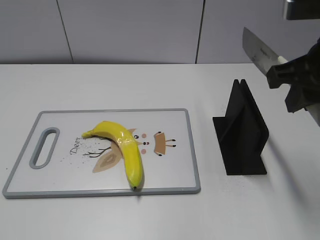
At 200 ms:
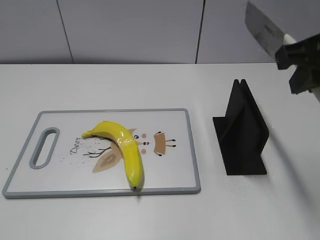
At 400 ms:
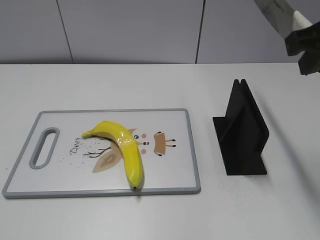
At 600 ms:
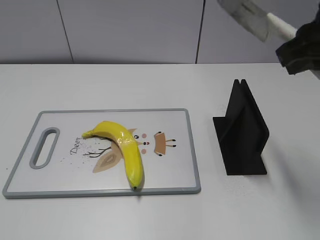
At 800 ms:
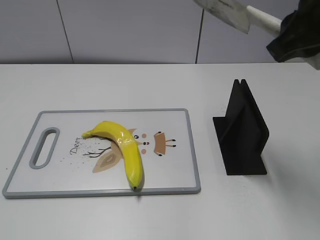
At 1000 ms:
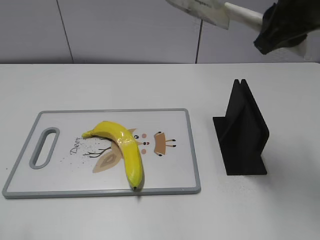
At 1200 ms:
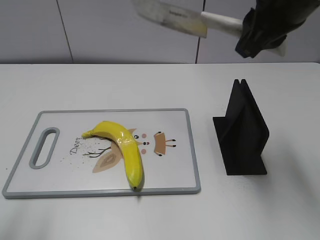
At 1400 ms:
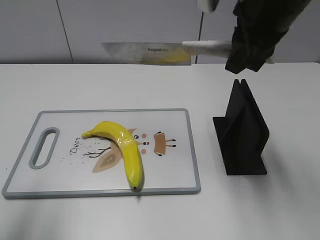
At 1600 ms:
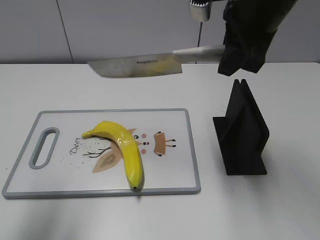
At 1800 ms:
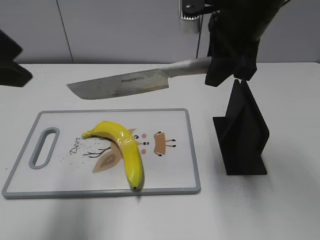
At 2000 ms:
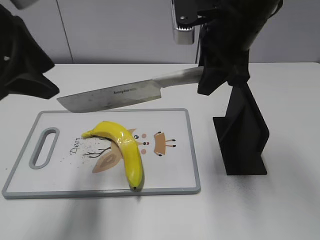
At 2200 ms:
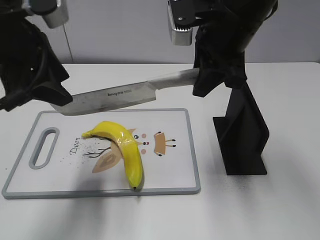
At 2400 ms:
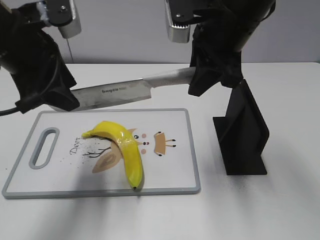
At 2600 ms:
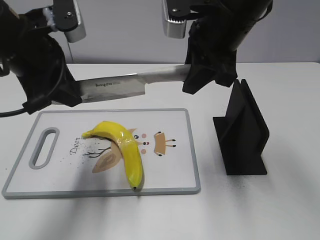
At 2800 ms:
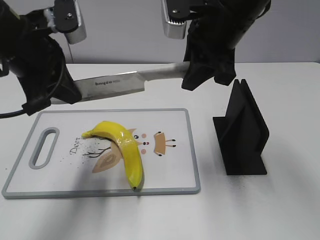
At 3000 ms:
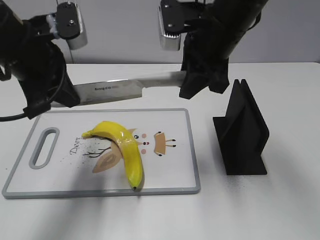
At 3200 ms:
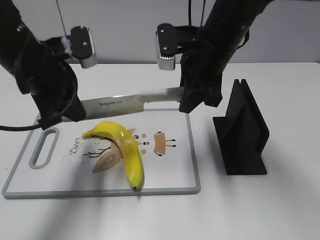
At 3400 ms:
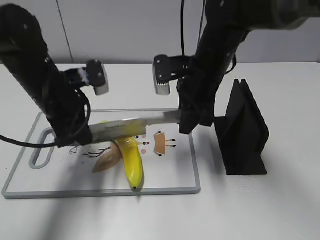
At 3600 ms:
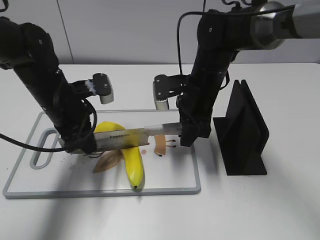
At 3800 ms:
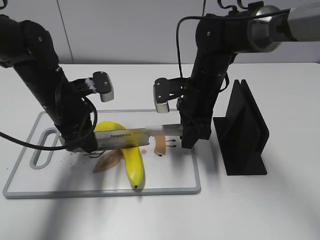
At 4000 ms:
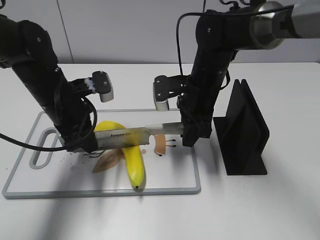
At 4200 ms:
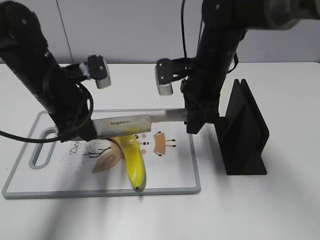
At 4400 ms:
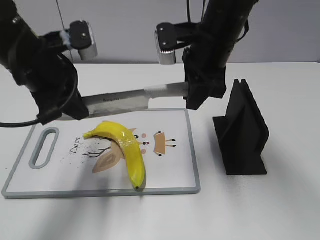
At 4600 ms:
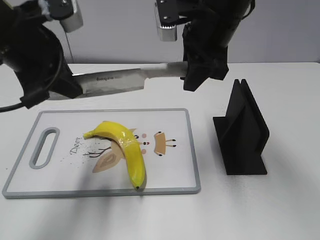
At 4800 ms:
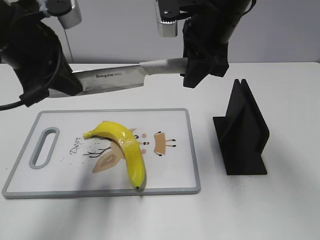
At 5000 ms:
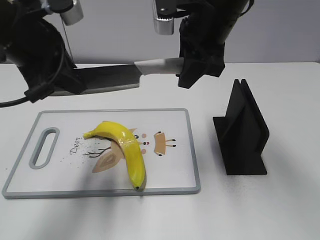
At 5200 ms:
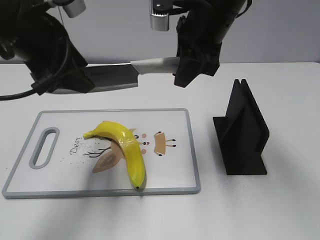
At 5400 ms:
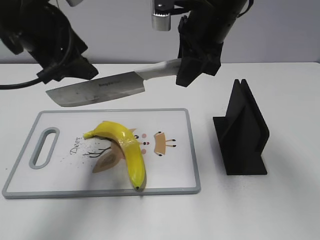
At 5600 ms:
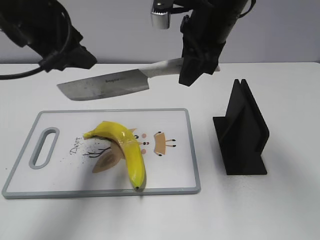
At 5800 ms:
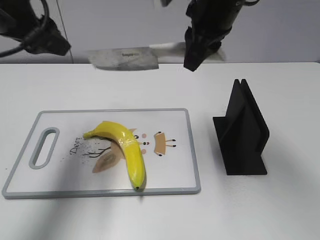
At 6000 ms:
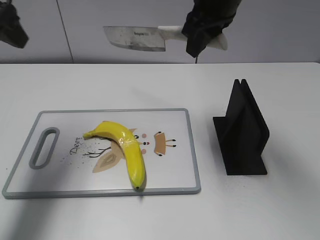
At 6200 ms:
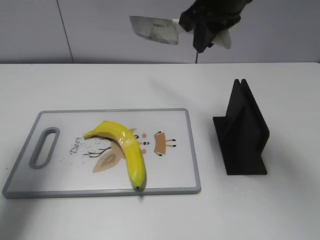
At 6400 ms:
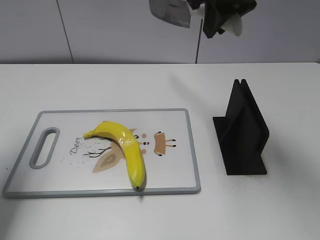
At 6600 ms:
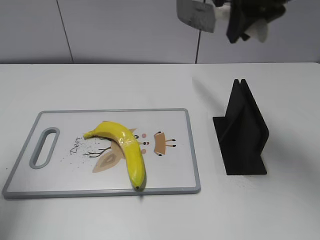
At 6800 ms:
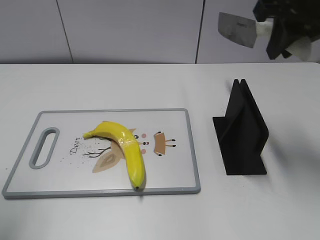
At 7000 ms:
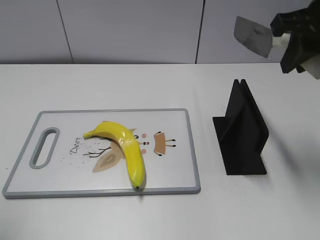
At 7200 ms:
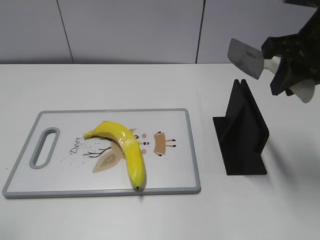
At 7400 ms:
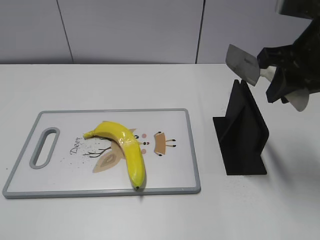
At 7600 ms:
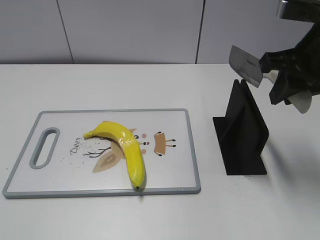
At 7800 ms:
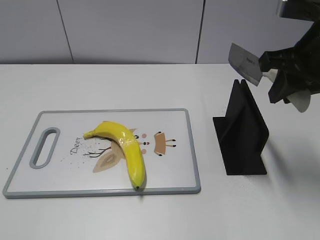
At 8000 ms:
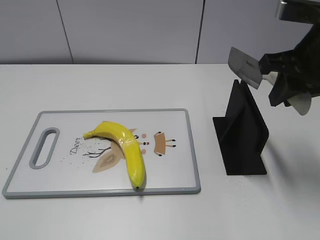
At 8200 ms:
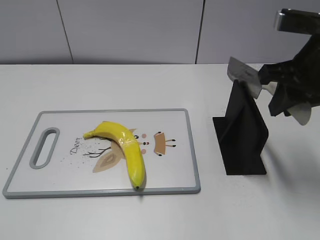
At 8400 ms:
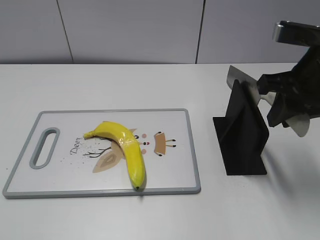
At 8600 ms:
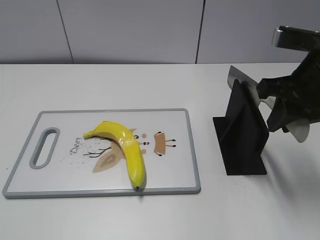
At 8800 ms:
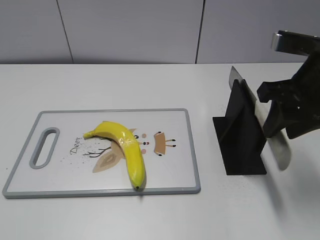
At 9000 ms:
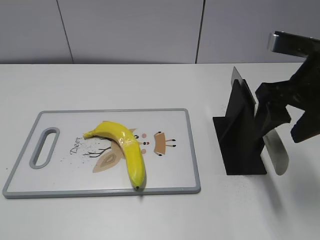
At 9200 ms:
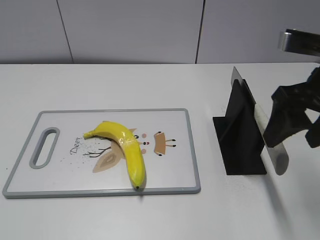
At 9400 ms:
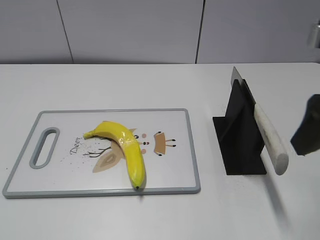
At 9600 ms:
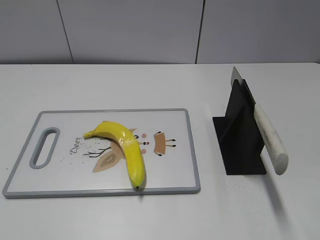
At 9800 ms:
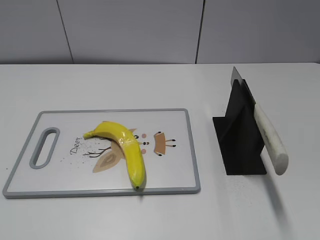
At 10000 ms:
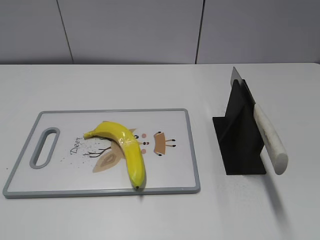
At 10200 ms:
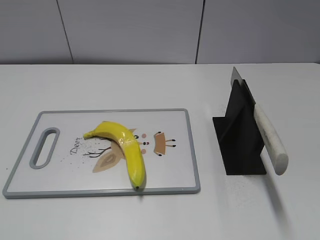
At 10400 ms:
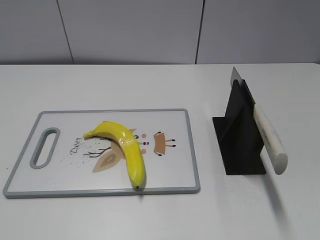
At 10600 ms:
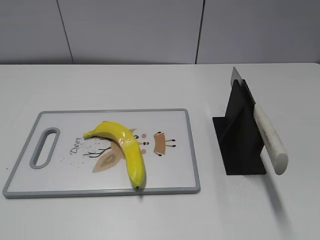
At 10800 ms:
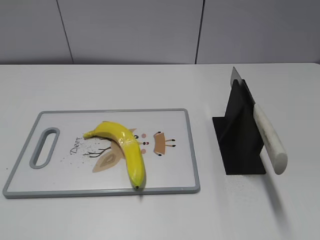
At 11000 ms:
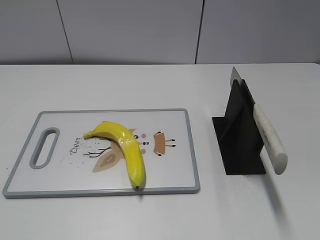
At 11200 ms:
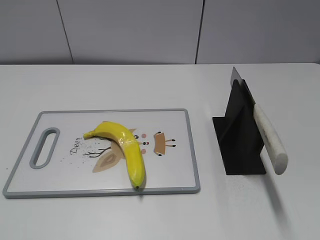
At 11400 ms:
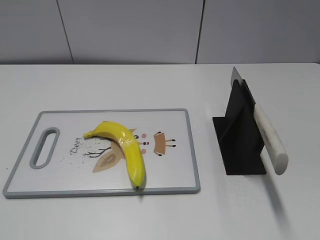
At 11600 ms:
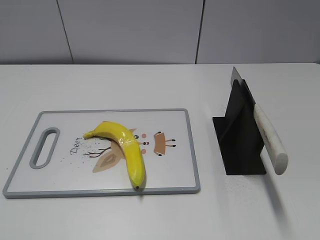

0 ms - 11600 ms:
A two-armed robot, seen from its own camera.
Task of the whole recording: cut plastic banana.
Step, 400 ms - 5000 ms: Lift the knife with your right hand.
Step, 5200 ms - 6000 ms: Cut the banana with your right hand.
Step, 6400 ms - 7200 ms: Lift the knife with your right hand.
Step, 7400 ms - 11600 ms: Place the knife on the storage rack with your right hand.
0 ms - 1400 ms: The left gripper is displaced forward and upward by some 15 cm, while the right gripper moves forward and to the left, roughly 10 cm.
1400 ms - 2800 ms: The right gripper shifts by about 5 cm; the left gripper shifts about 20 cm forward, to the right and downward, and closes.
2800 ms - 4400 ms: The left gripper reaches about 15 cm downward, then returns. The right gripper travels downward and back again, about 15 cm each way.
4400 ms - 5800 ms: The two grippers go approximately 5 cm upward. The left gripper opens.
5800 ms - 7200 ms: The left gripper goes some 25 cm backward and to the left. The right gripper goes about 15 cm to the right and backward.
7200 ms - 8800 ms: The right gripper moves some 5 cm.
8800 ms - 10200 ms: The right gripper moves backward, some 20 cm, and opens up.

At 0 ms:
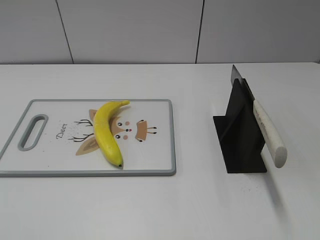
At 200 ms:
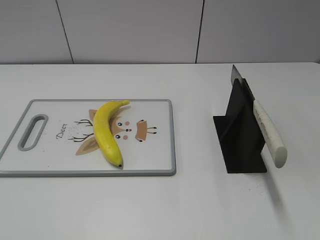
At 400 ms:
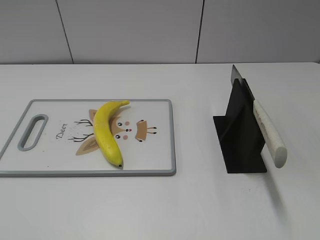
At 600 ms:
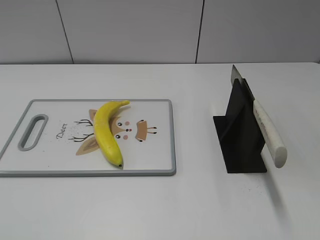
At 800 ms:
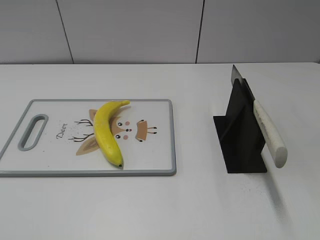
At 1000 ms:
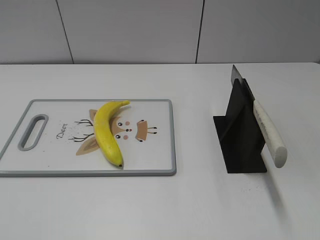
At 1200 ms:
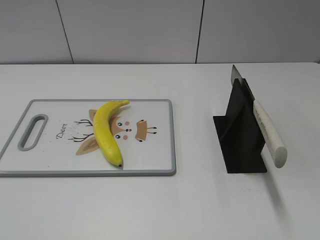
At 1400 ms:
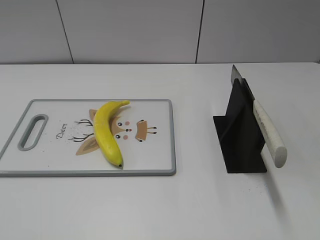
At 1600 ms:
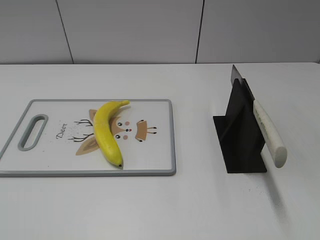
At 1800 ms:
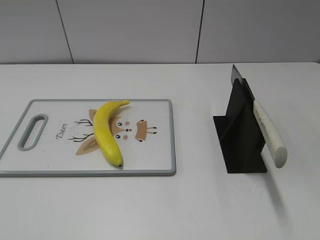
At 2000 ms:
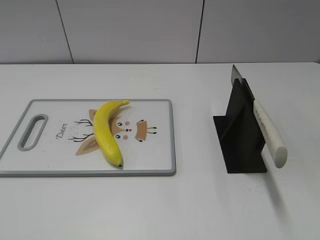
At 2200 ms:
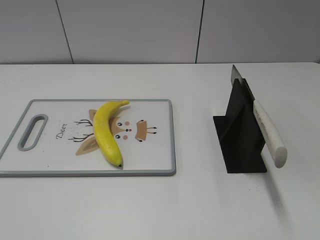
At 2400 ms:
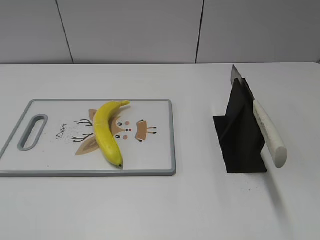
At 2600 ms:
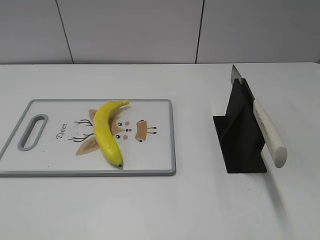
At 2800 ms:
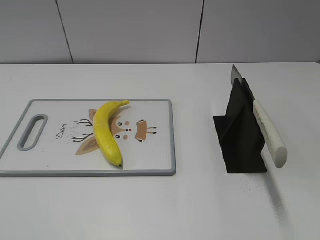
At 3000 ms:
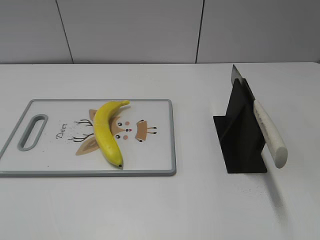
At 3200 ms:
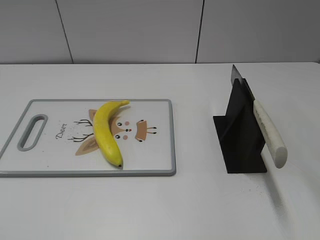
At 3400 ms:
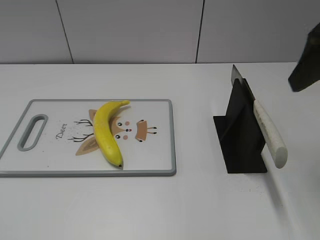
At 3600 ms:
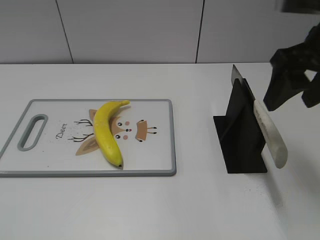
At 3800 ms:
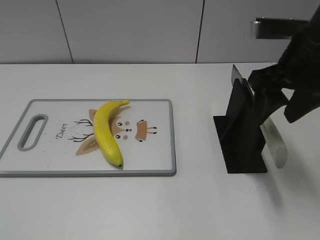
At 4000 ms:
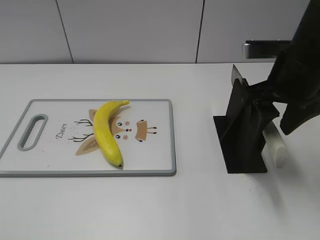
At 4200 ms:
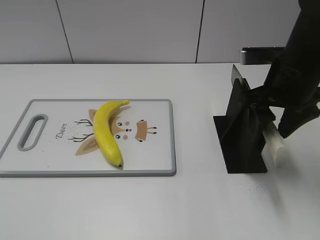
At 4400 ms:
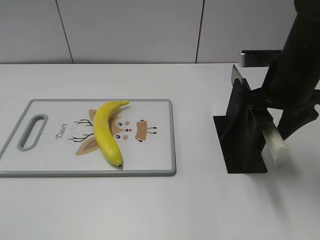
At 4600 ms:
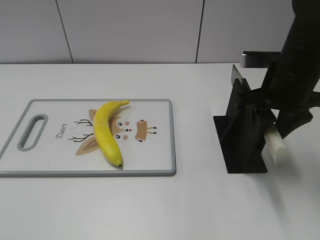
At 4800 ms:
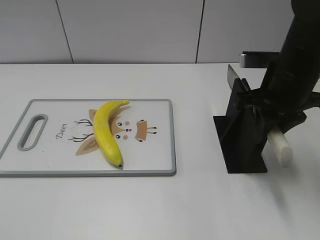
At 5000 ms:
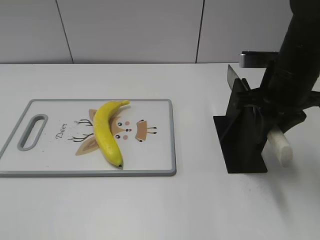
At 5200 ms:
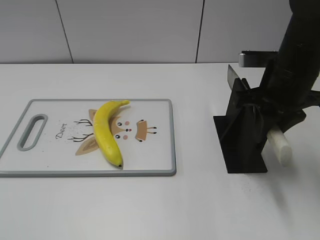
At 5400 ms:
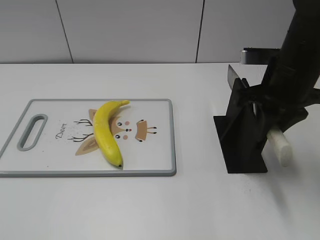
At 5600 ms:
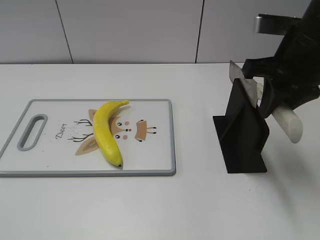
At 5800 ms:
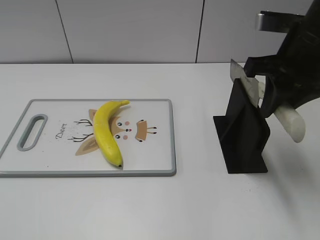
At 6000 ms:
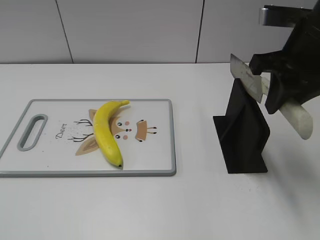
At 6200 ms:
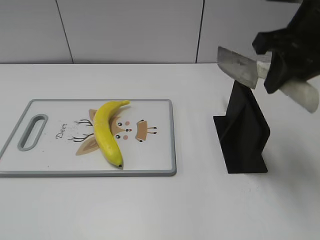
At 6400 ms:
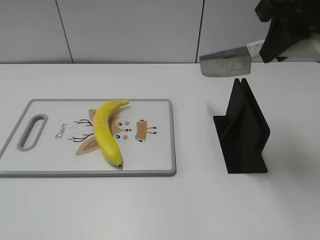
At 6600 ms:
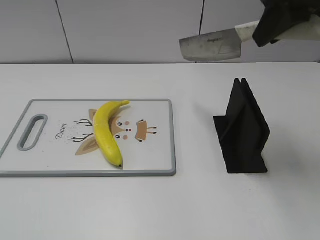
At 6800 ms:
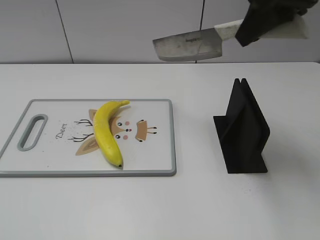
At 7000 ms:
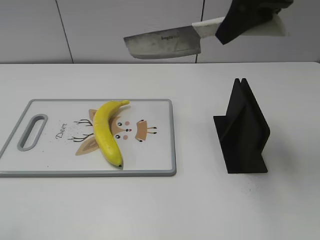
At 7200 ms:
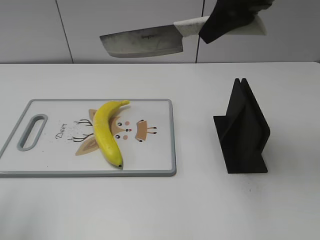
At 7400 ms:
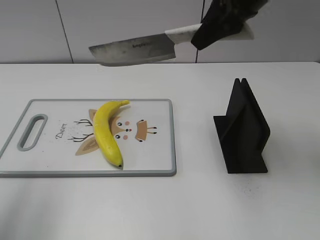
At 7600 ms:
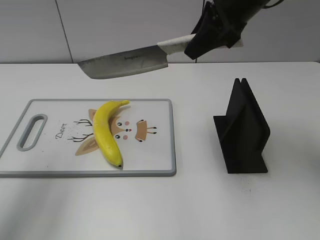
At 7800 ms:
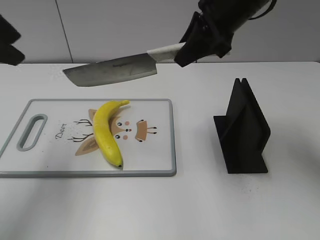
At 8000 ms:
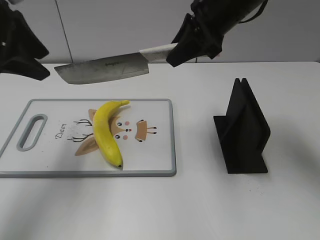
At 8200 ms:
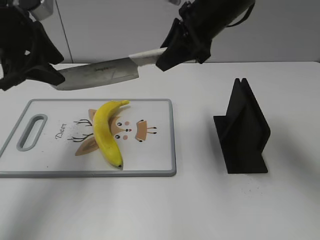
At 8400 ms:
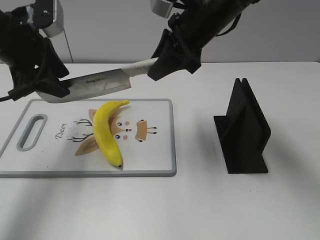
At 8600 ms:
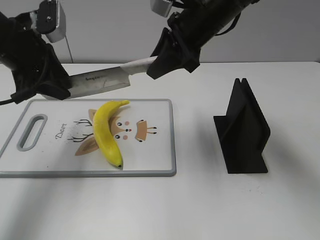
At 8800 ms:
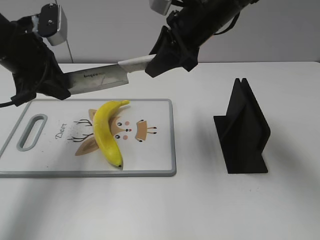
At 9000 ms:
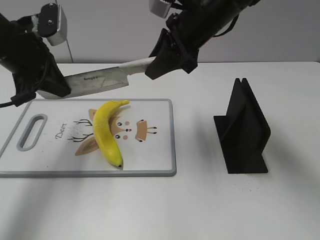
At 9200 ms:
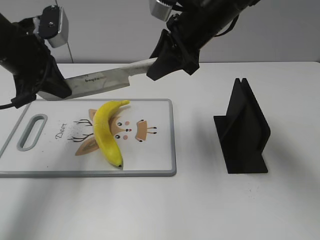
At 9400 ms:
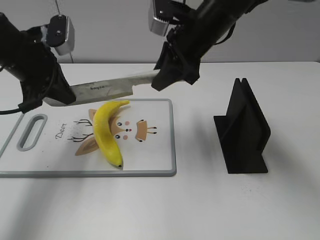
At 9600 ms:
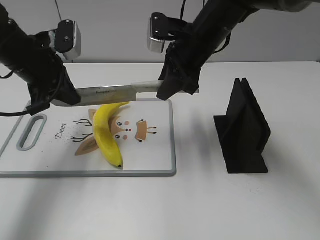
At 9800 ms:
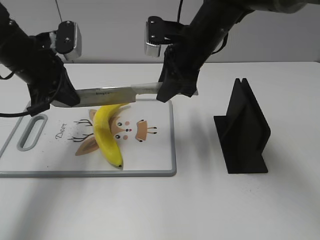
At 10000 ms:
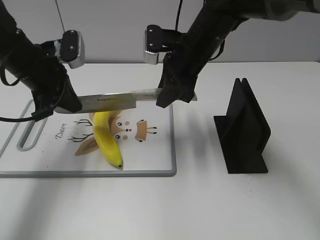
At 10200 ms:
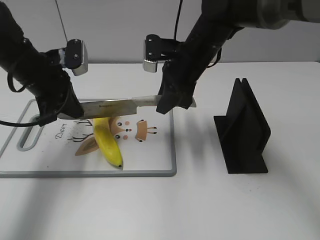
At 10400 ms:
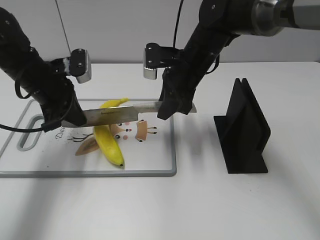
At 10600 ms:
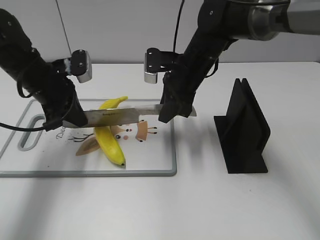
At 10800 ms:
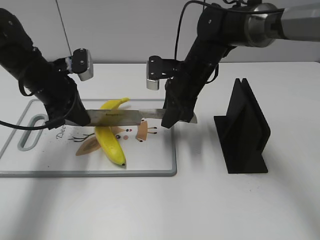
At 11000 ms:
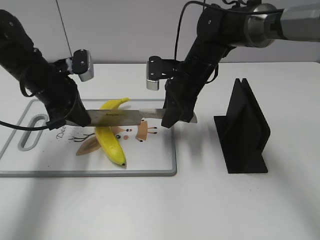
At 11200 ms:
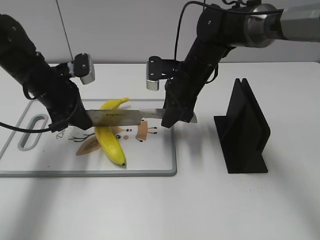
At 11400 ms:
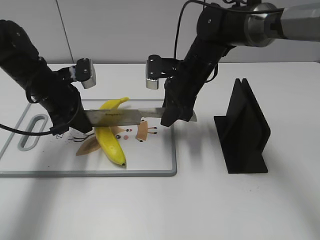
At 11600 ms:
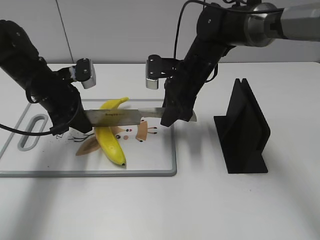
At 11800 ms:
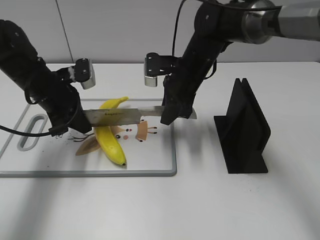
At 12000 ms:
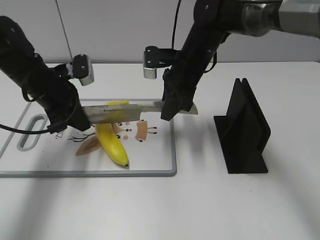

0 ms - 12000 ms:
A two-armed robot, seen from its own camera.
Task of the whole recording: cut plastic banana.
Step, 0 ms - 5600 ms: Grab the knife handle with your right hand.
Step, 6000 ms - 11200 ms: Lift the knife with your right hand.
3000 ms - 4400 ms: The right gripper moves downward, forward and to the left, about 25 cm.
4400 ms - 6000 ms: The right gripper moves upward, some 5 cm, and closes its fingers.
6000 ms - 7600 ms: The left gripper moves forward, approximately 25 cm; the right gripper moves forward and to the left, roughly 10 cm, and moves about 10 cm upward and comes back.
7600 ms - 9000 ms: The right gripper heads downward and to the left, covering roughly 10 cm. Meanwhile the left gripper travels downward, forward and to the right by approximately 15 cm, and closes.
9000 ms - 10400 ms: The two grippers go approximately 10 cm downward.
10400 ms - 12000 ms: The grippers make only small movements.
